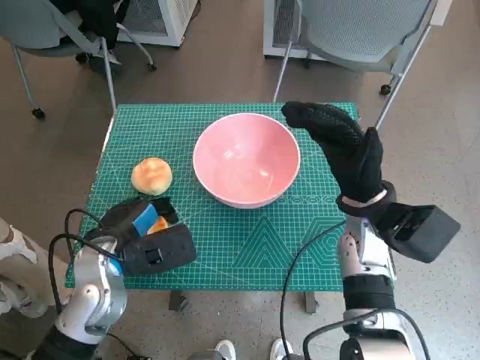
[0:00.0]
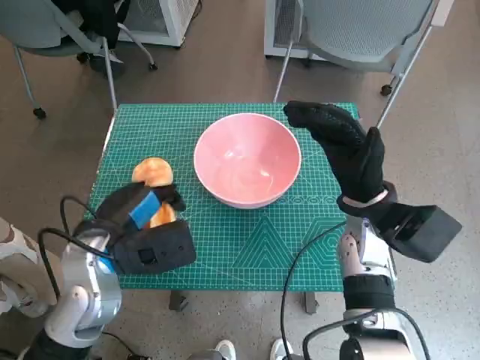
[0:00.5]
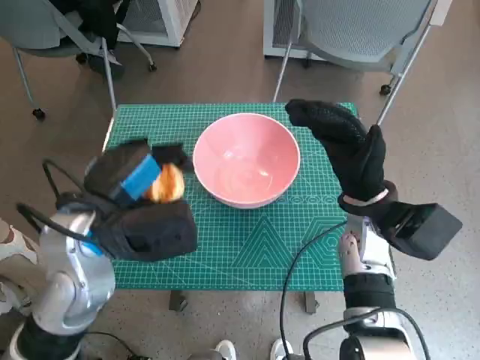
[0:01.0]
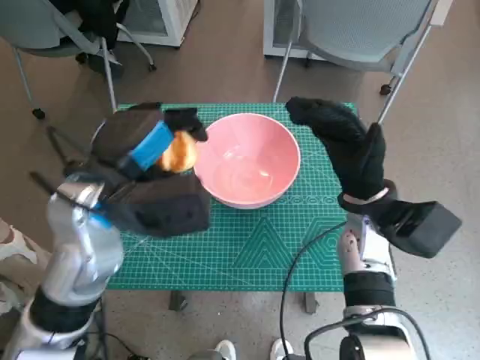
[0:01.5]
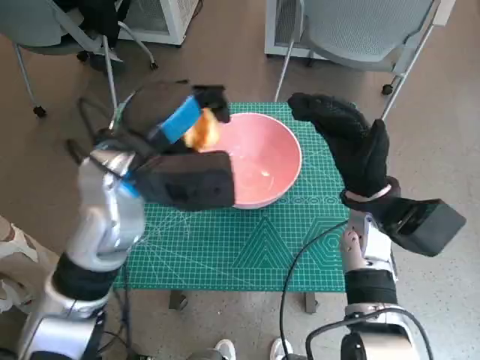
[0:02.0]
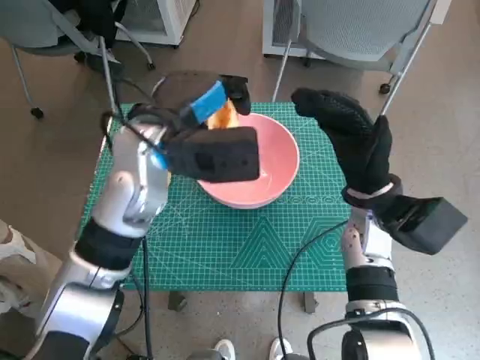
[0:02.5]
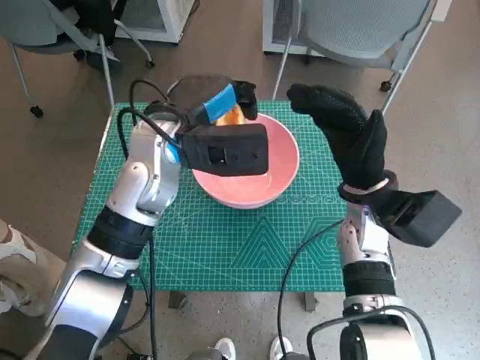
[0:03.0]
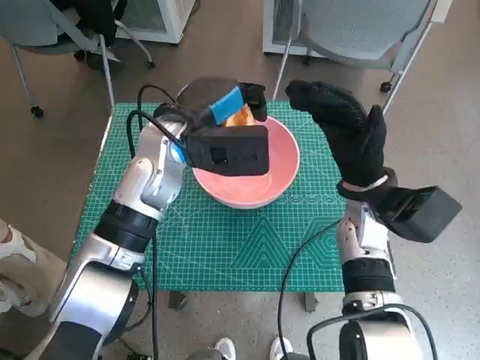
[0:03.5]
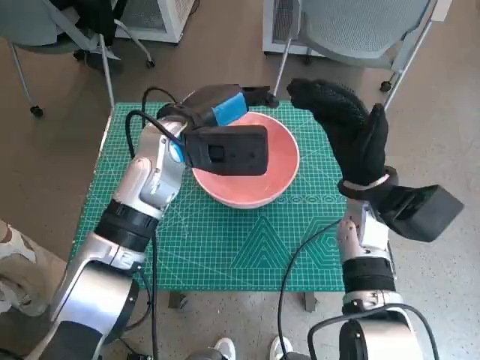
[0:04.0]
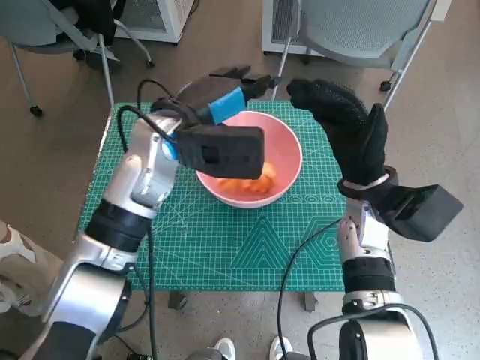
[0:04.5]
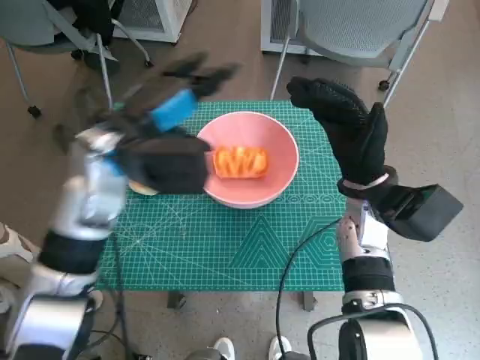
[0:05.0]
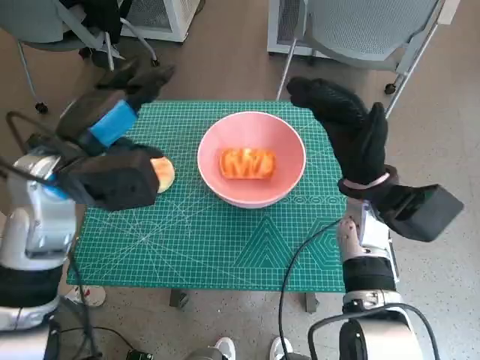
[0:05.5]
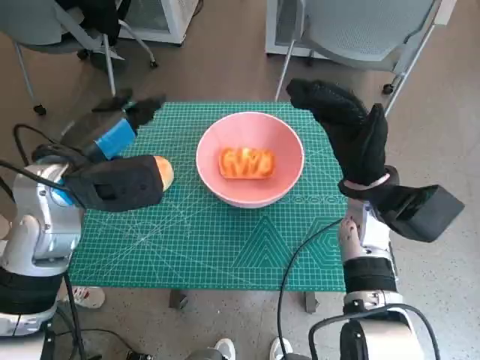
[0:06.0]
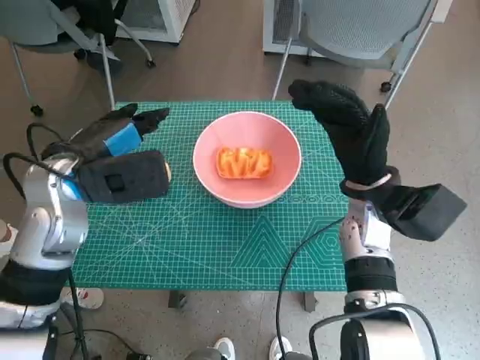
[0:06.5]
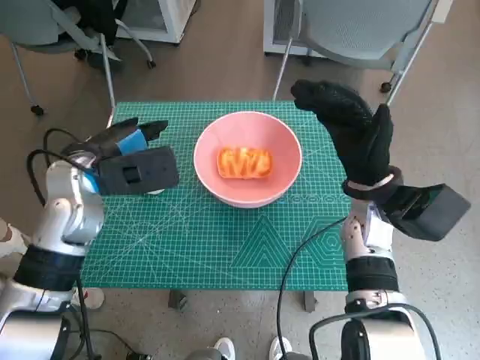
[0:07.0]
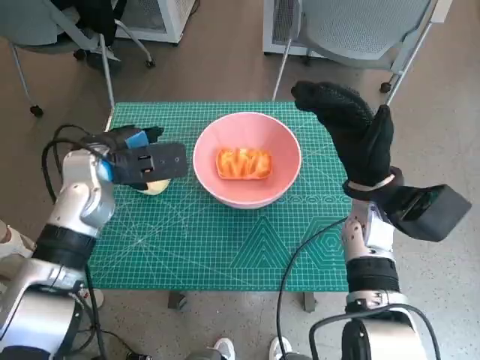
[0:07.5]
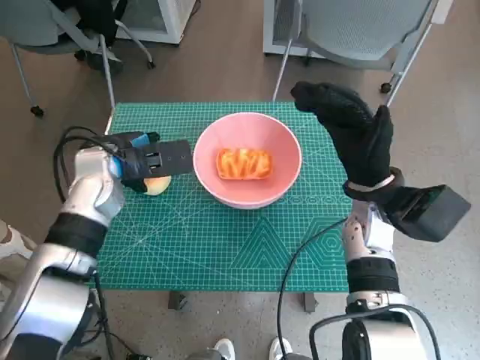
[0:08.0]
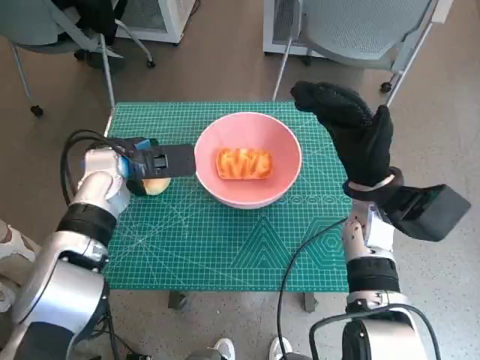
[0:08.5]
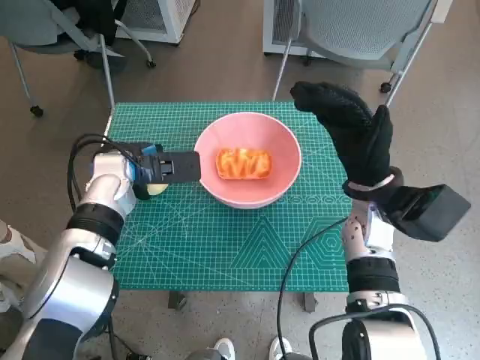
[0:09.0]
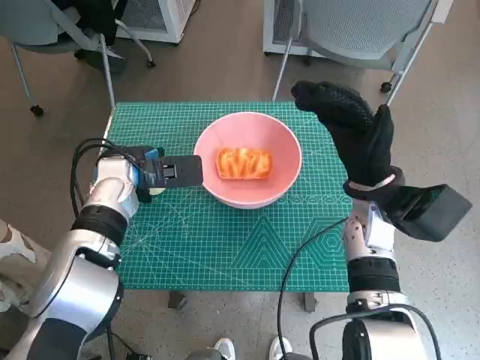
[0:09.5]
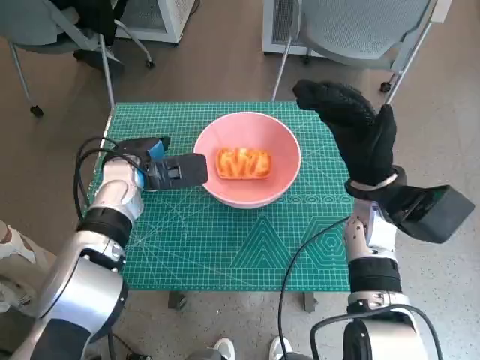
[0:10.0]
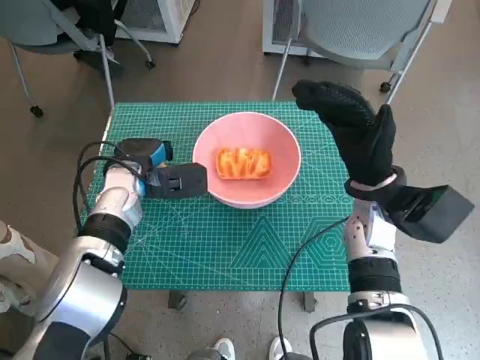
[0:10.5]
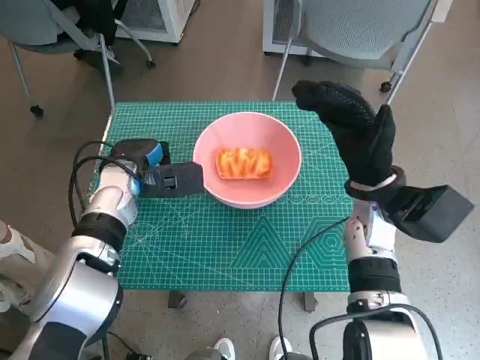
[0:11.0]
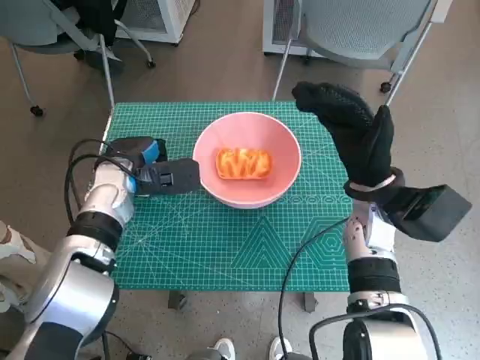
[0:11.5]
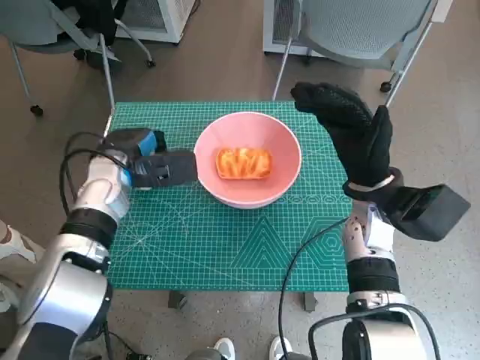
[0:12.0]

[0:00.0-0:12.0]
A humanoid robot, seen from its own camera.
Step, 0:00.0 to 0:04.0: Place the long bread in pink bowl with left hand.
Step, 0:04.5 to 0:10.5: Grasp the round bread with left hand.
0:00.0 to 0:02.0: The left hand shifts approximately 15 cm upward and to the right.
0:02.0 to 0:04.0: The left hand goes roughly 5 cm forward.
0:04.0 to 0:06.0: The left hand travels to the left and backward by some 15 cm.
0:06.0 to 0:08.0: The left hand goes some 10 cm forward and downward.
0:08.0 to 0:12.0: There are only small adjustments of the hands.

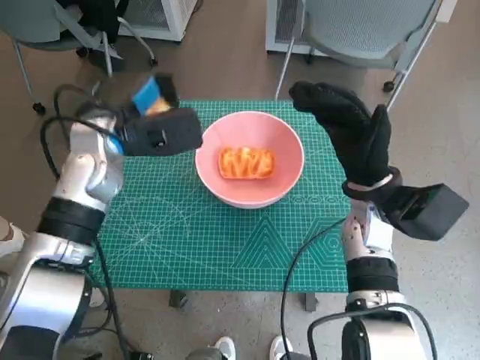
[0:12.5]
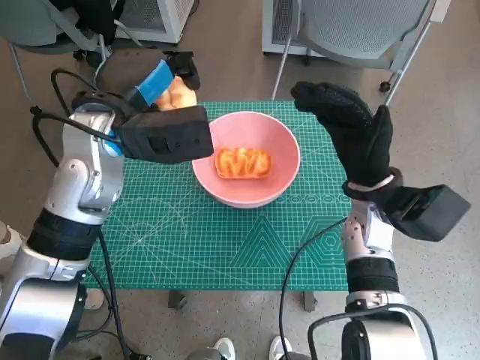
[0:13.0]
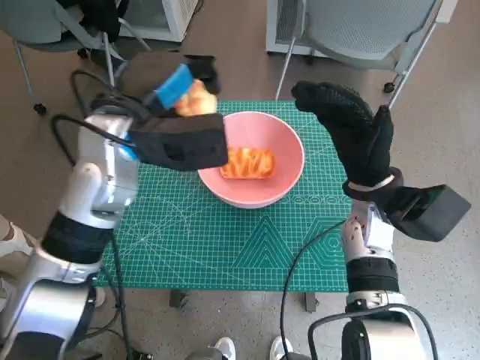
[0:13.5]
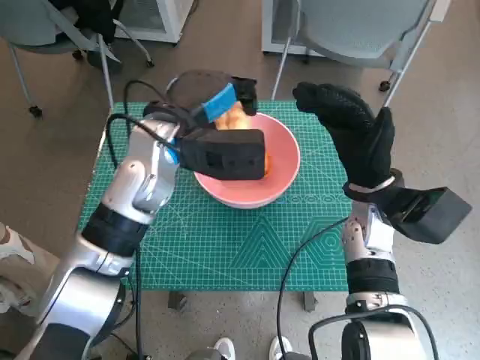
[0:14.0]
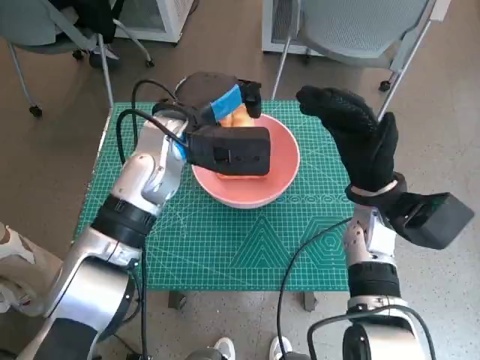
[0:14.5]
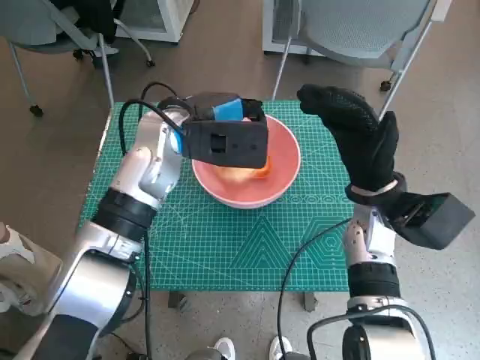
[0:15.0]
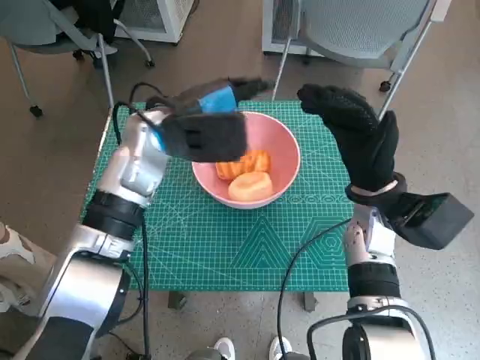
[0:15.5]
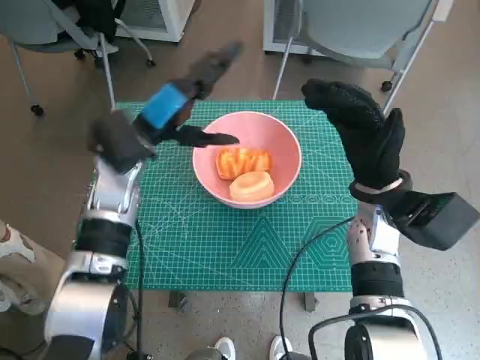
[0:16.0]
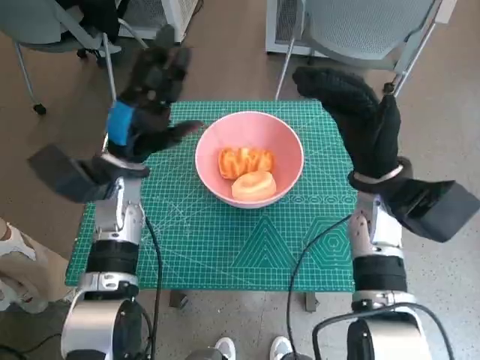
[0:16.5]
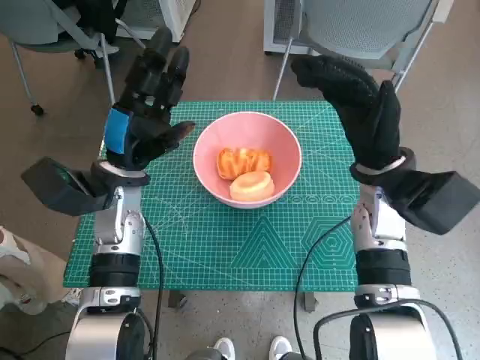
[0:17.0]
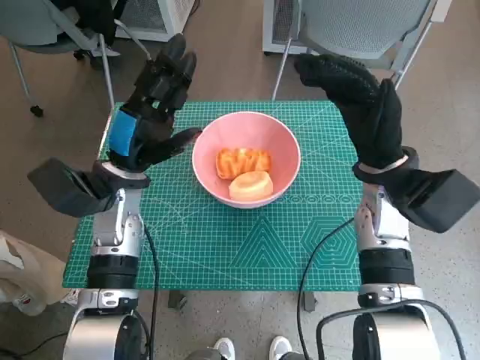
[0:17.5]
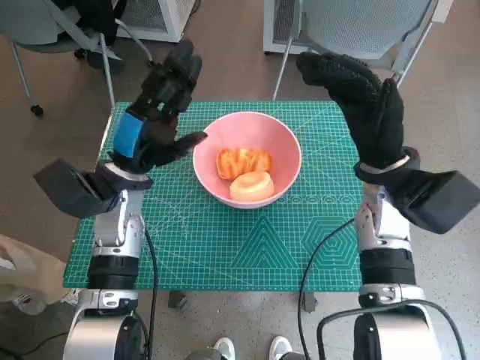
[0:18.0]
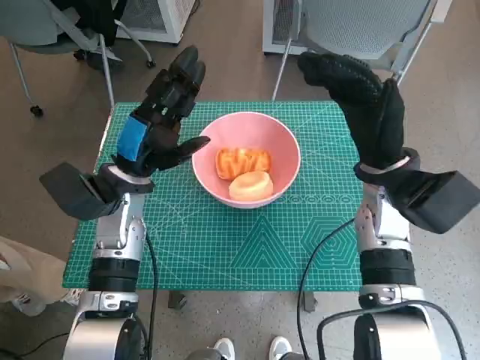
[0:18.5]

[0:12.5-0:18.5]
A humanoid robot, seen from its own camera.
Step, 0:12.5 to 0:15.0: Place the round bread in pink bowl with left hand.
0:12.5 to 0:14.5: The left hand travels to the right by about 10 cm.
0:14.5 to 0:16.5: The left hand shifts roughly 10 cm to the left and downward.
